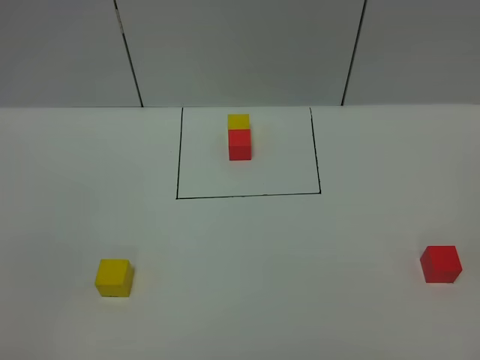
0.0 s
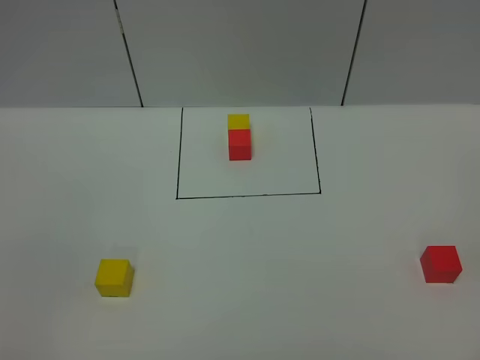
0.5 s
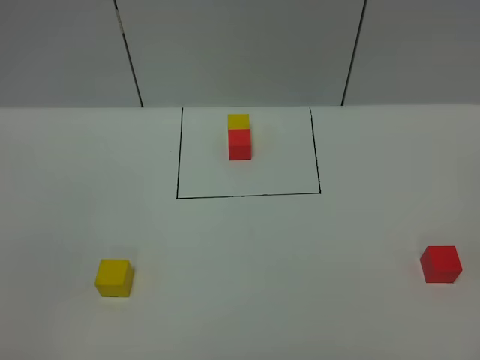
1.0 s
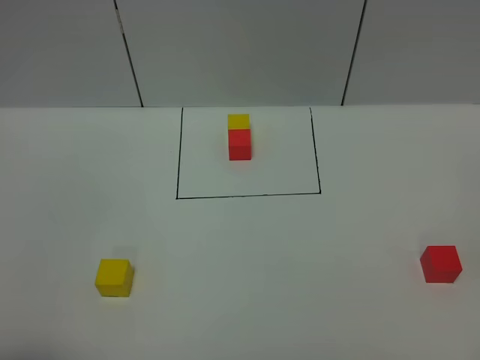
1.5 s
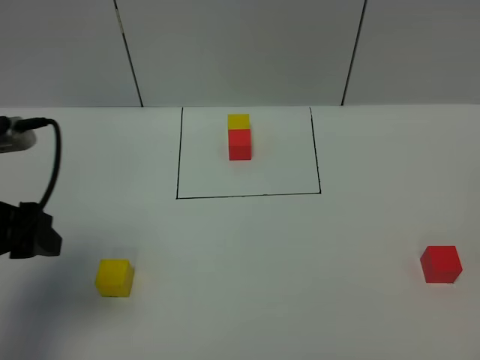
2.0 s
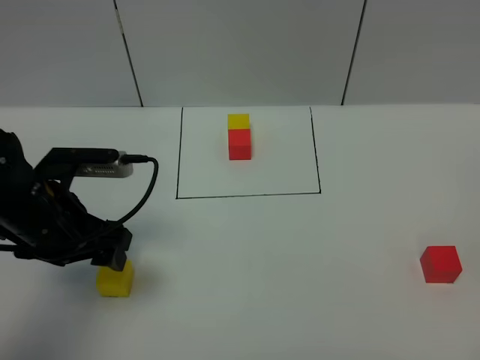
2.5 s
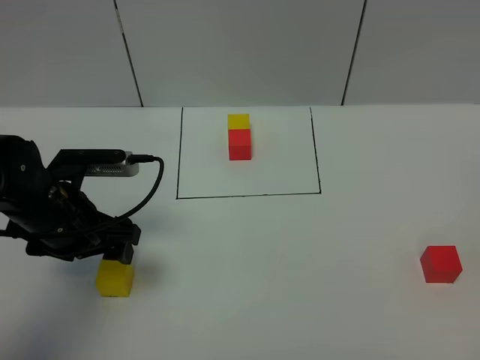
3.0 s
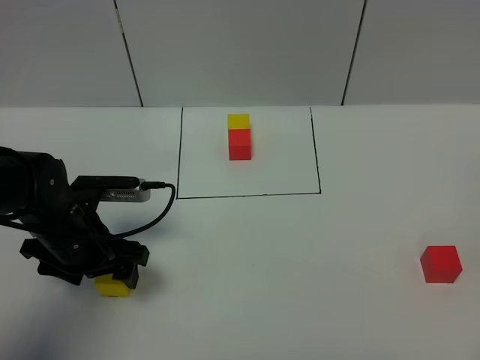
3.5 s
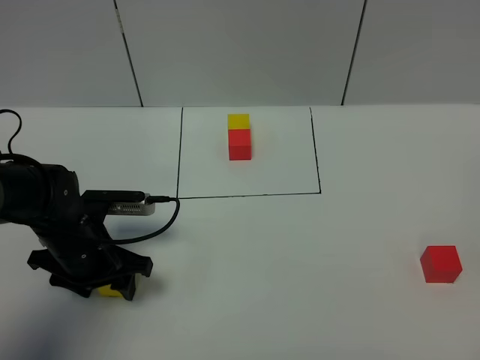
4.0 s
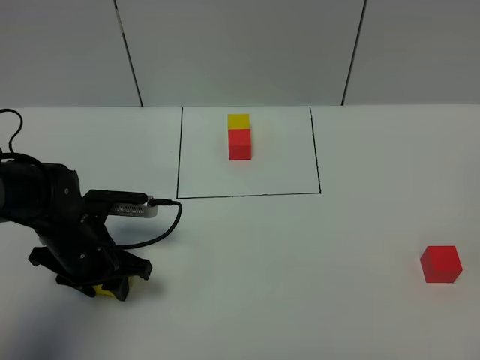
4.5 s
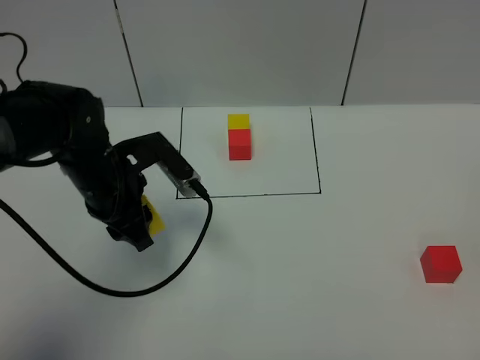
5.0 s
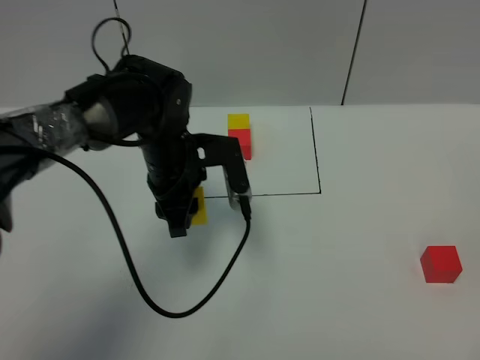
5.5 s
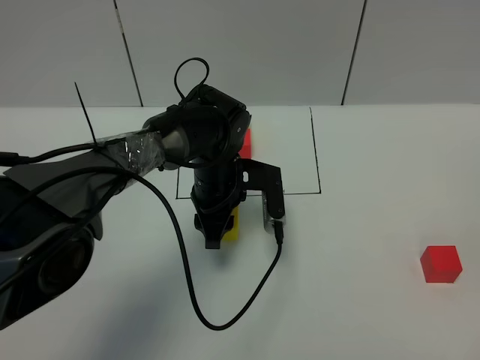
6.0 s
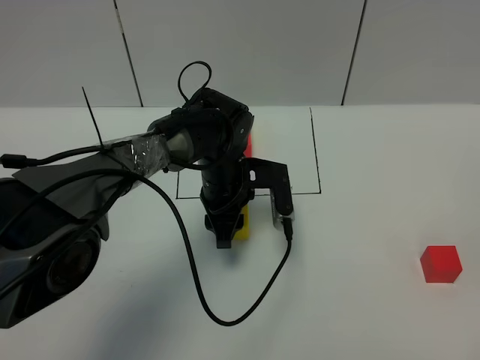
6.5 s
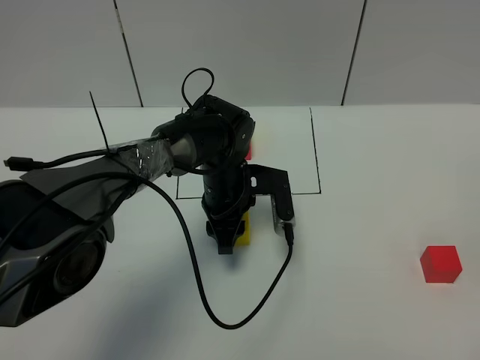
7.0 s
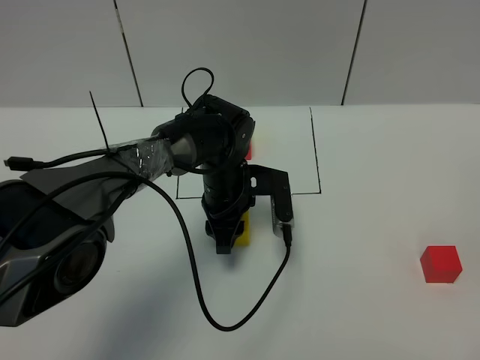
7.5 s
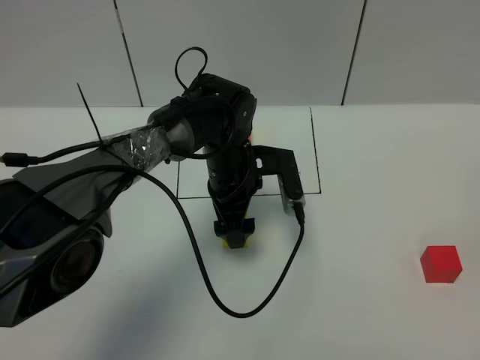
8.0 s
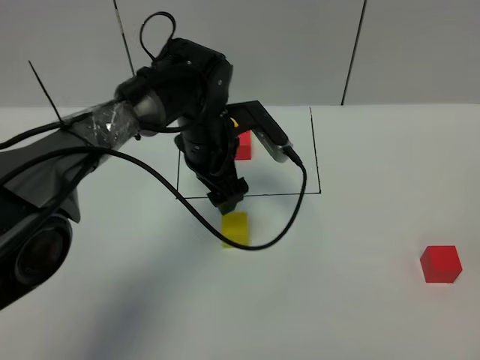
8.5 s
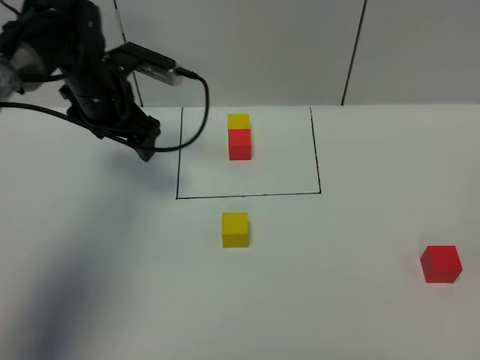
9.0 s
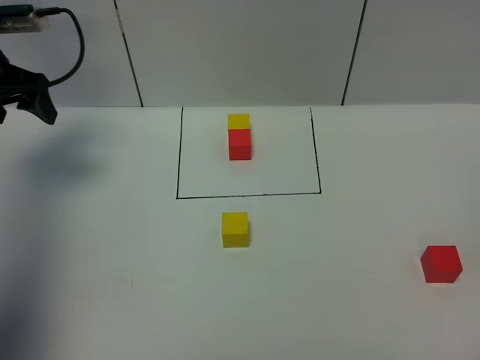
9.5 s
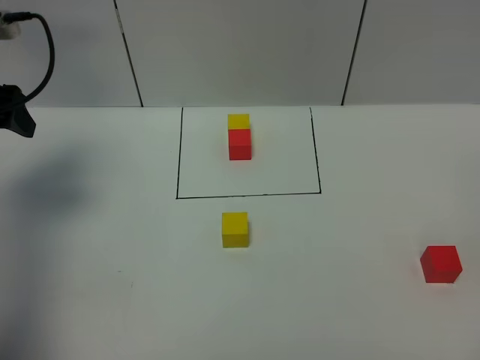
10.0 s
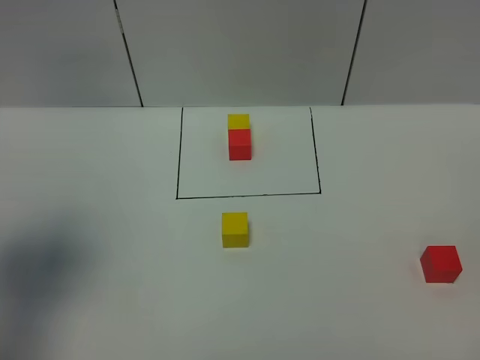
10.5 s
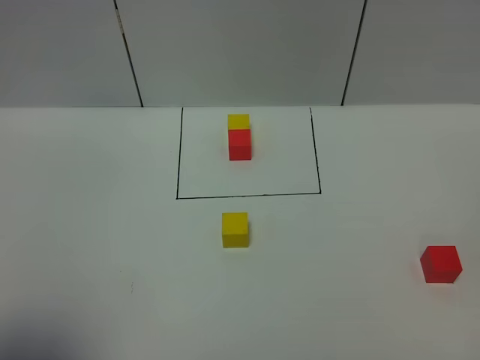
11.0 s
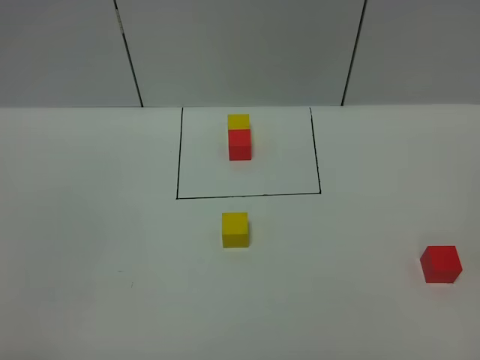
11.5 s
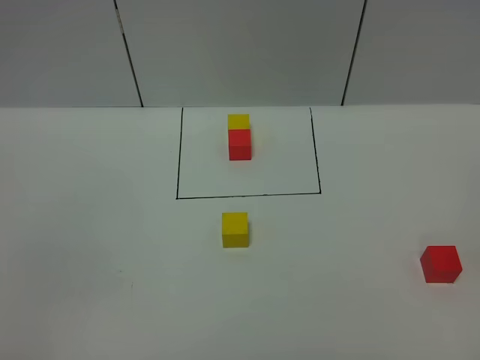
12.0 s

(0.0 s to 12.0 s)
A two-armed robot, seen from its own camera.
Task of the whole recording: According to the building block template in front, assemble the scattered blocks together.
Step, 2.0 s - 8.0 s: Put the yellow cube in the center of the table.
0.0 s - 2.0 s: The left gripper is displaced forward by about 25 cm.
2.0 s - 4.0 s: The left gripper shifts some 20 cm downward and forward.
4.0 s - 6.0 s: The left gripper travels to the right and forward by some 20 cm, and closes its fingers.
6.0 s - 8.0 s: The left gripper opens up.
8.0 s - 10.0 s: The left gripper is displaced to the left and upward by about 35 cm.
10.0 s - 12.0 s: The left gripper is displaced backward by approximately 40 cm.

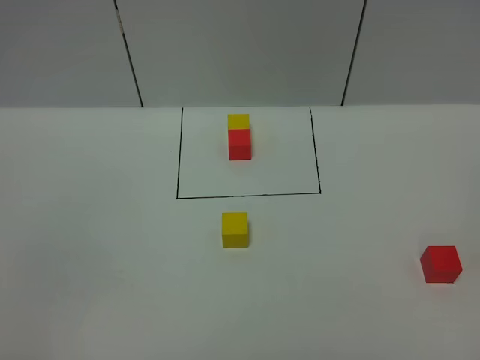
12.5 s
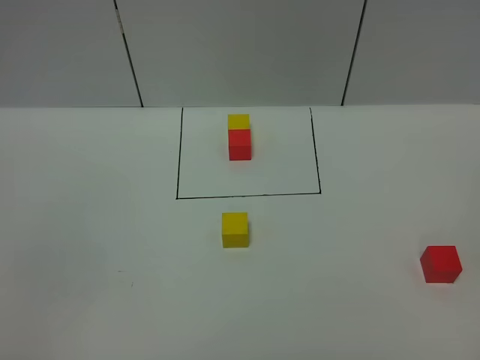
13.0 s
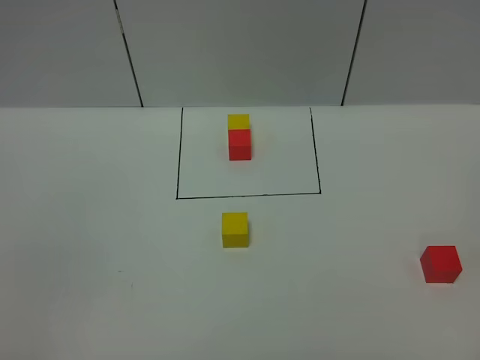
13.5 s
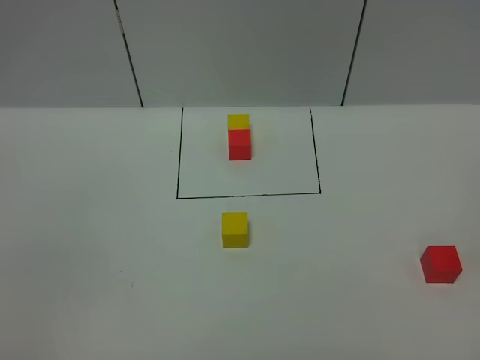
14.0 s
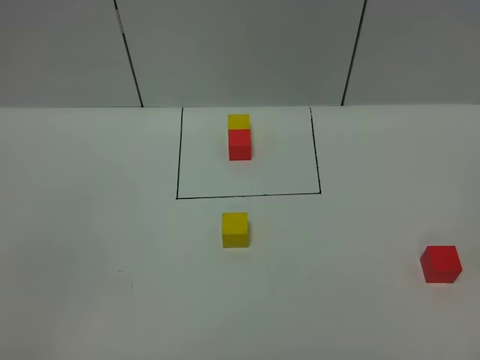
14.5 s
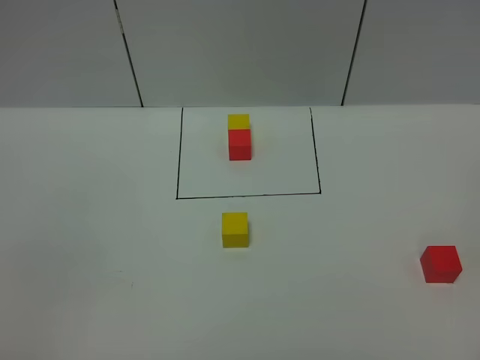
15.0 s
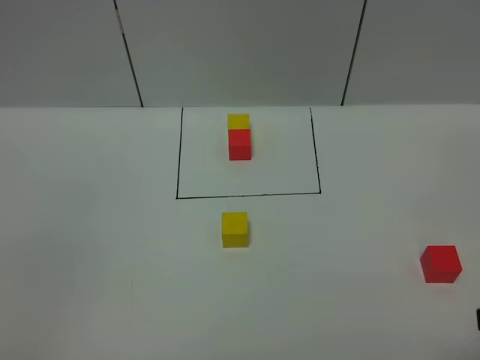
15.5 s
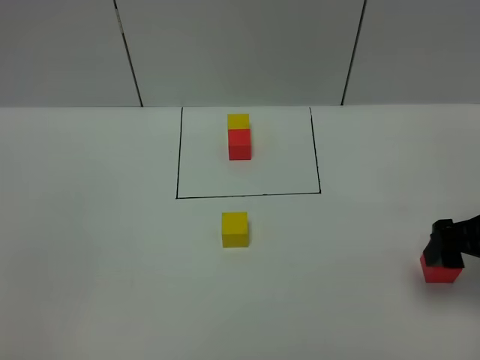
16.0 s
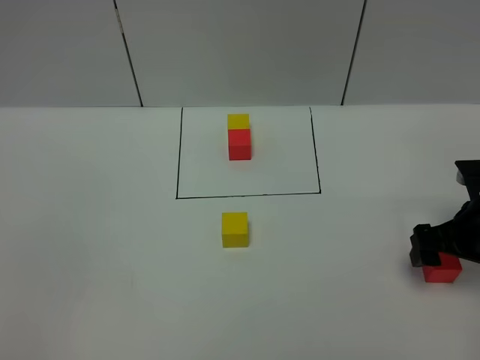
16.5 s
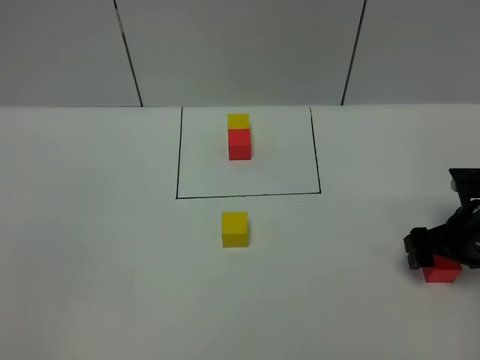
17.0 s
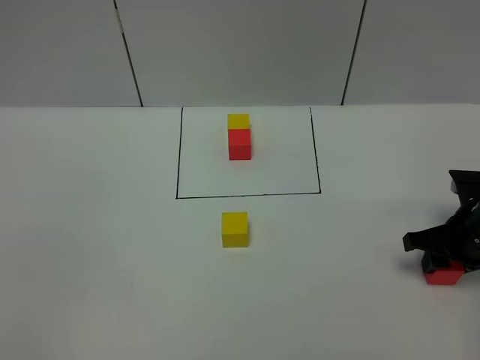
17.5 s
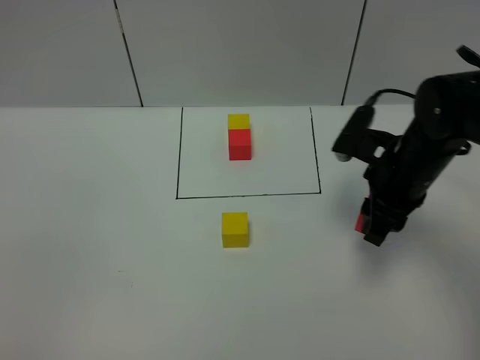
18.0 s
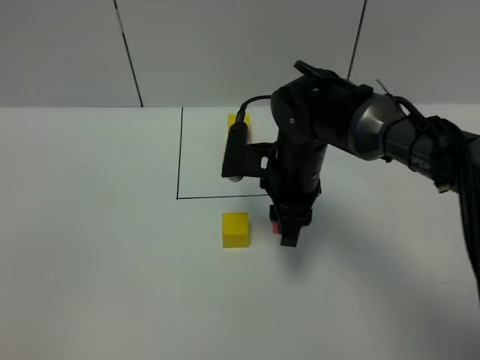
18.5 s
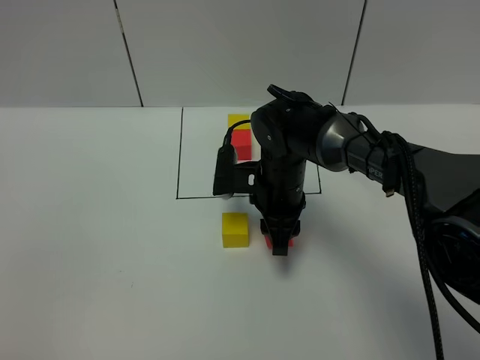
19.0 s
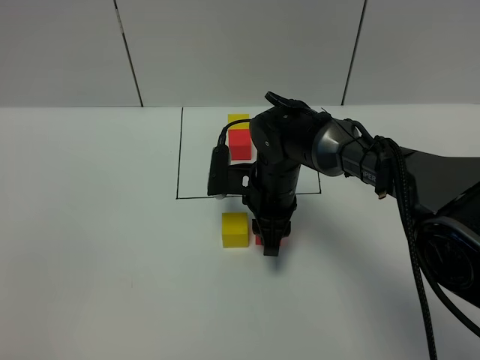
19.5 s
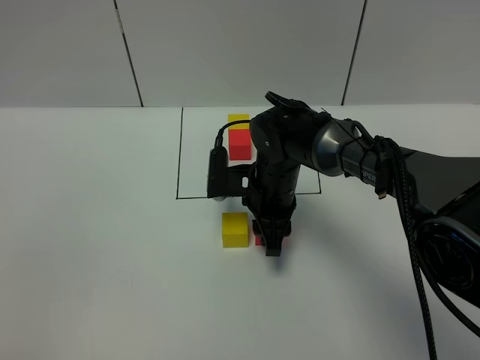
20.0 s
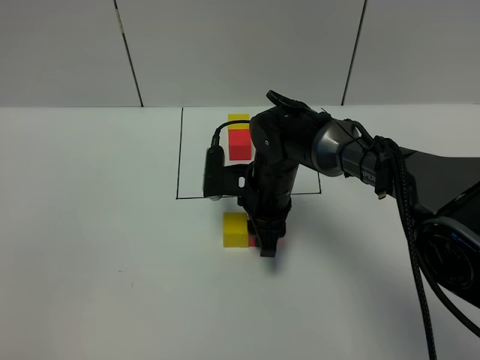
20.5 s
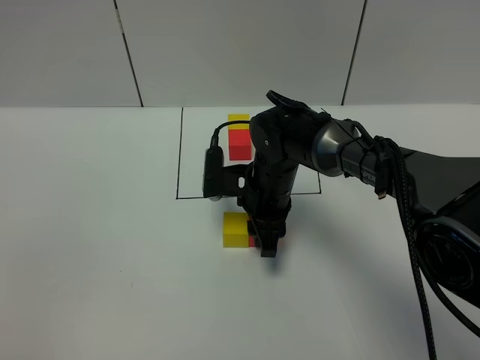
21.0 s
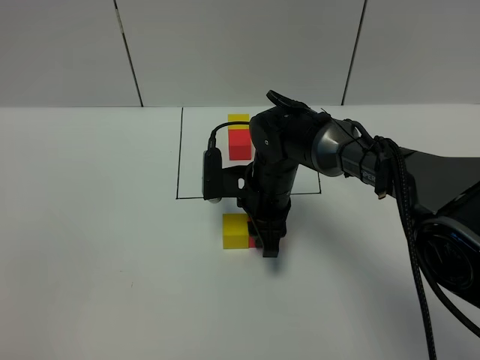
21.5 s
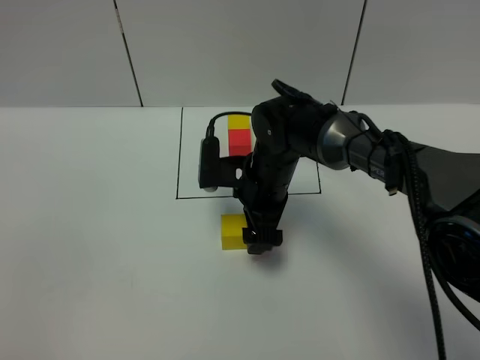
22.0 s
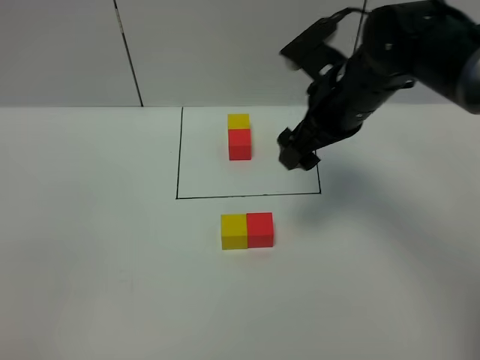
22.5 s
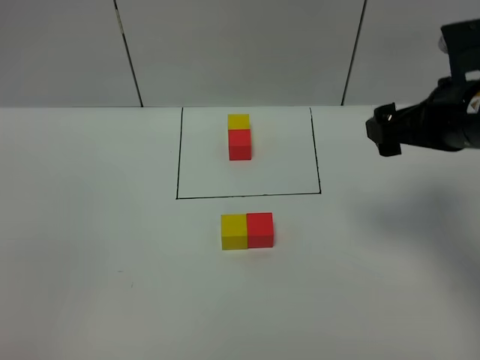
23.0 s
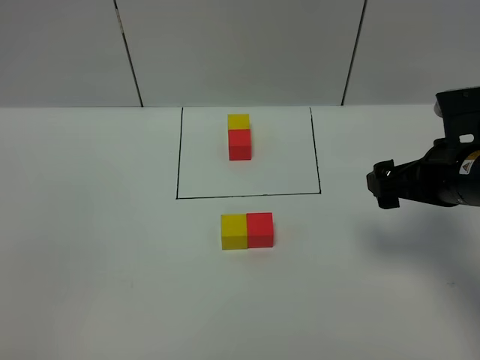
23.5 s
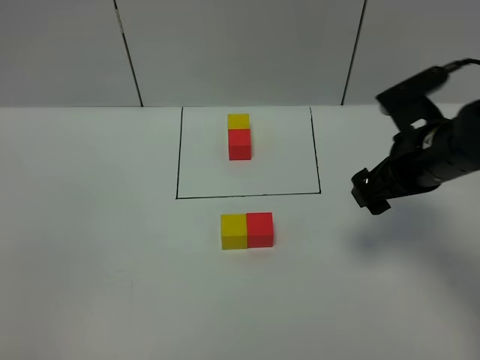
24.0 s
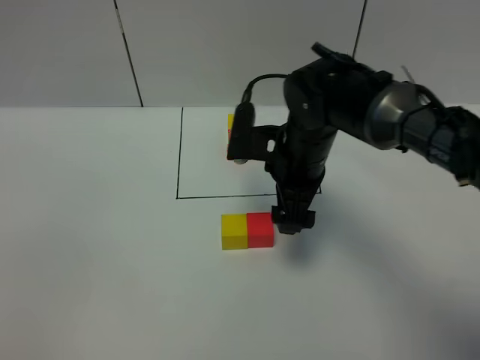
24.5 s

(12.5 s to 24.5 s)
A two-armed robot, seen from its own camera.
Task of the whole recording: According to the building block template in front, assemble the scattered blocks together.
Step, 12.5 s - 22.0 s: Put the red cube on the right of the yellow cube.
14.5 s - 16.5 s: The right gripper goes roughly 35 cm forward and downward.
16.5 s - 18.5 s: The right gripper travels to the left by roughly 25 cm, and closes its fingers.
18.5 s - 20.5 s: The right gripper travels downward by roughly 5 cm.
20.5 s - 22.5 s: The right gripper heads upward and to the right, covering roughly 20 cm, and opens.
22.5 s - 24.5 s: The right gripper heads downward and to the left, covering some 10 cm.

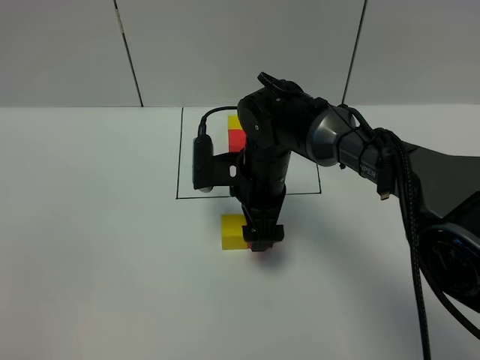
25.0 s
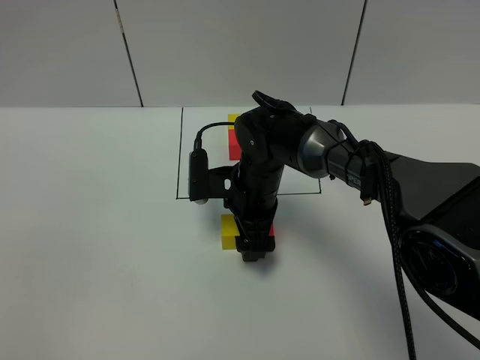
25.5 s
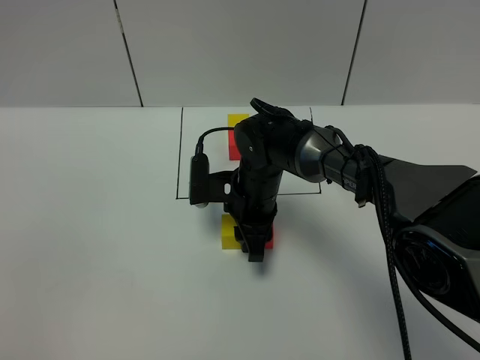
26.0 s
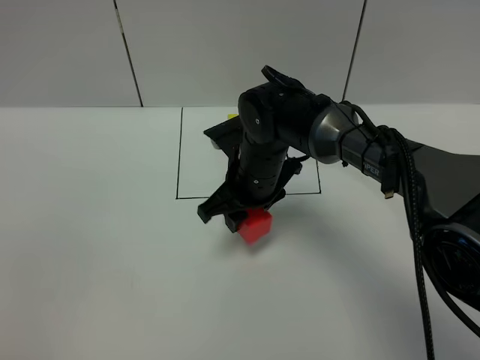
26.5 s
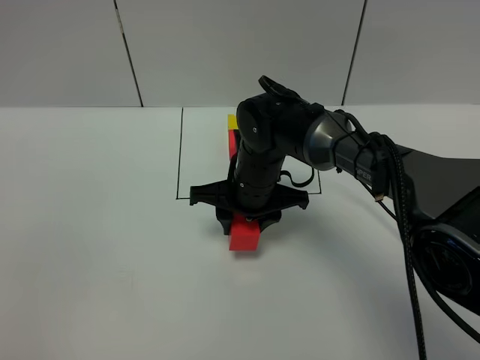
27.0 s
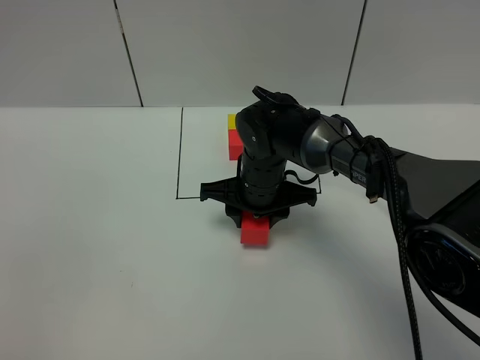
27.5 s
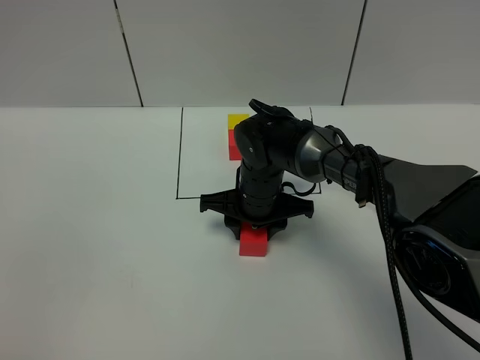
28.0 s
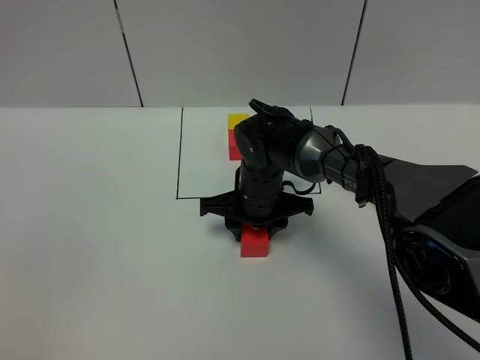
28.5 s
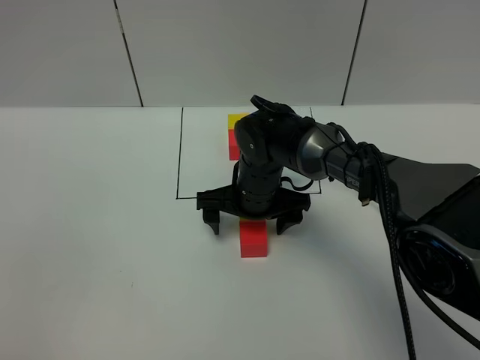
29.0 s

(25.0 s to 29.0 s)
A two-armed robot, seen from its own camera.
Task of the whole recording: According to the building block template in front, assemble the scattered blocks together.
Step, 25.0 s - 29.0 s: Adjust the pose of the building blocks.
25.0 s - 27.0 s: The right gripper closes up.
27.0 s - 29.0 s: The right gripper opens its fingers.
